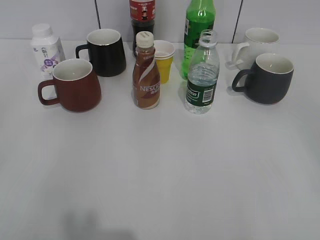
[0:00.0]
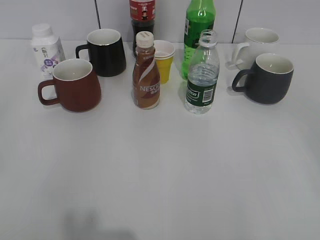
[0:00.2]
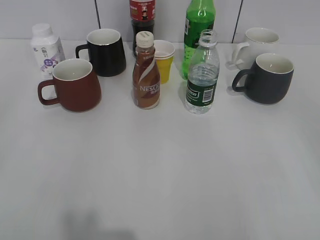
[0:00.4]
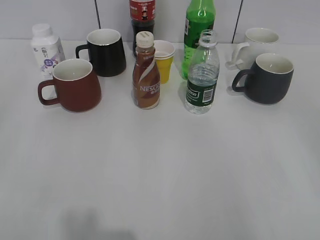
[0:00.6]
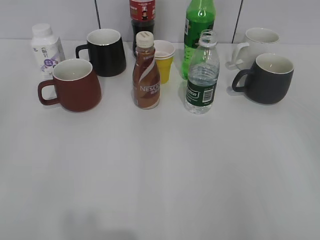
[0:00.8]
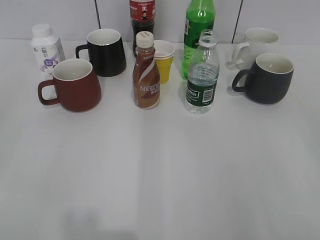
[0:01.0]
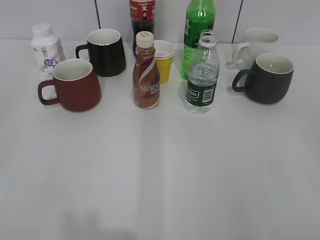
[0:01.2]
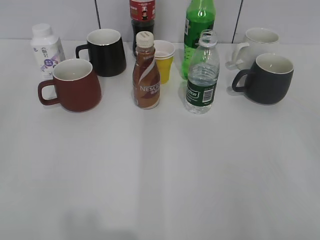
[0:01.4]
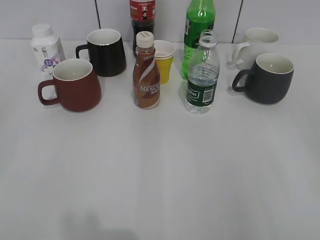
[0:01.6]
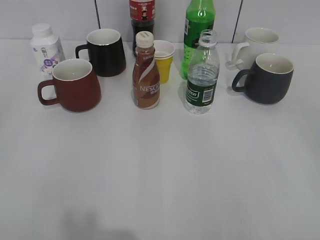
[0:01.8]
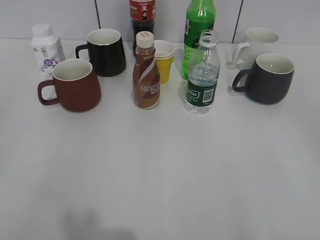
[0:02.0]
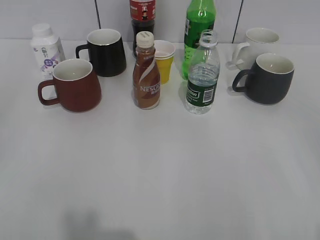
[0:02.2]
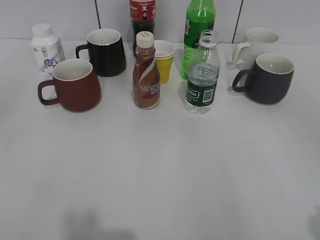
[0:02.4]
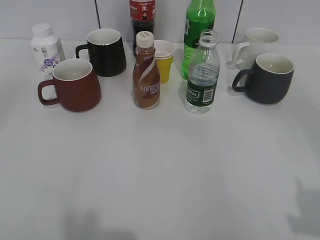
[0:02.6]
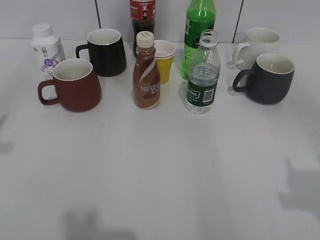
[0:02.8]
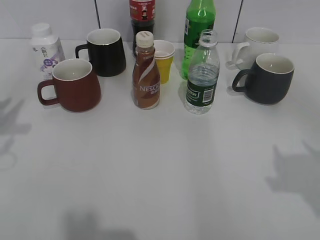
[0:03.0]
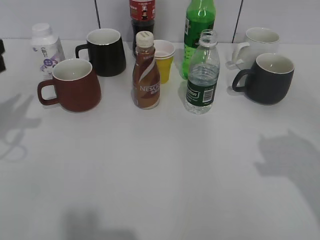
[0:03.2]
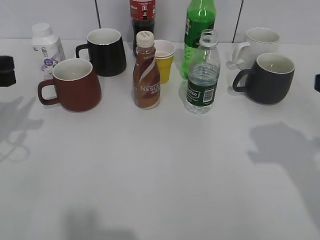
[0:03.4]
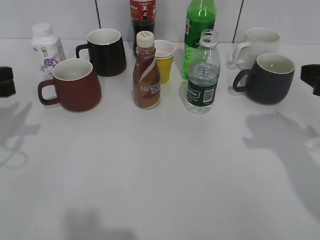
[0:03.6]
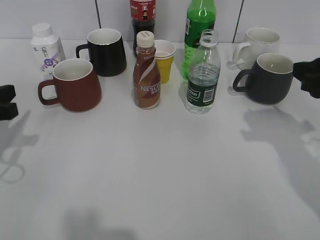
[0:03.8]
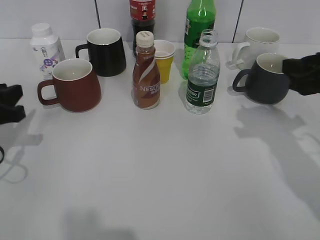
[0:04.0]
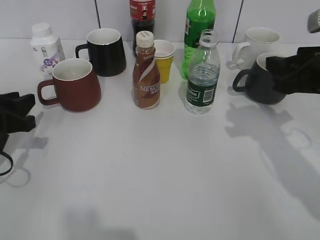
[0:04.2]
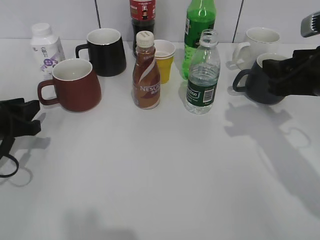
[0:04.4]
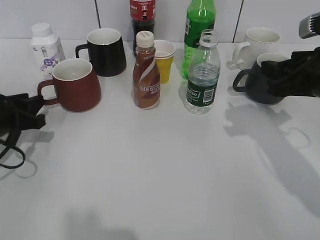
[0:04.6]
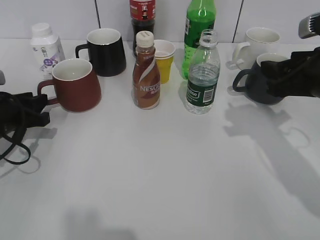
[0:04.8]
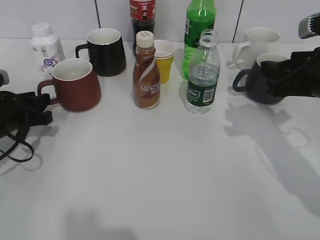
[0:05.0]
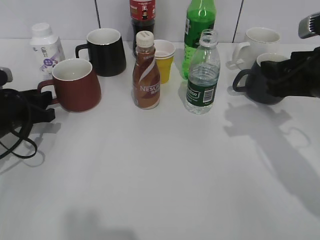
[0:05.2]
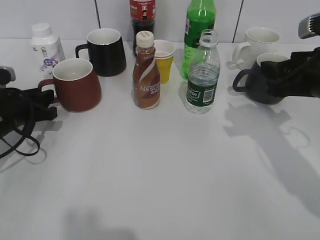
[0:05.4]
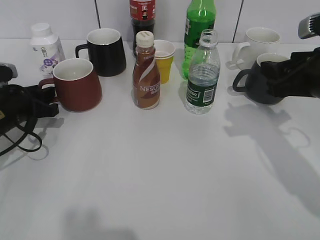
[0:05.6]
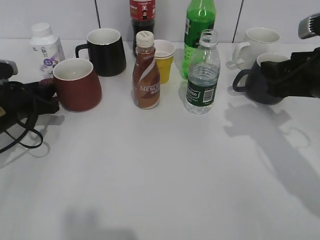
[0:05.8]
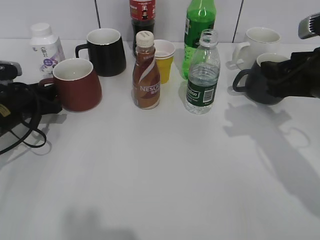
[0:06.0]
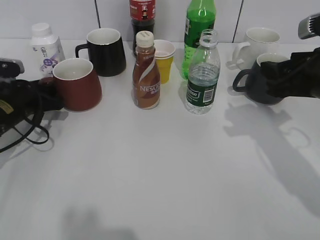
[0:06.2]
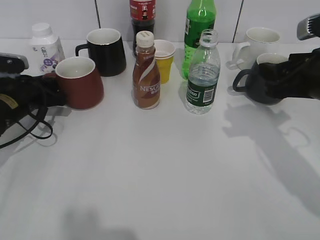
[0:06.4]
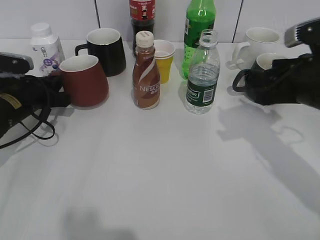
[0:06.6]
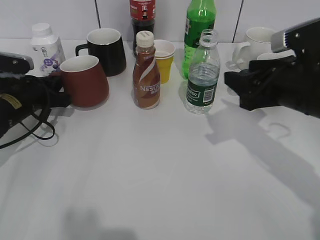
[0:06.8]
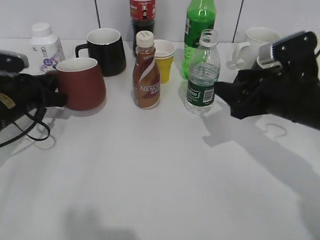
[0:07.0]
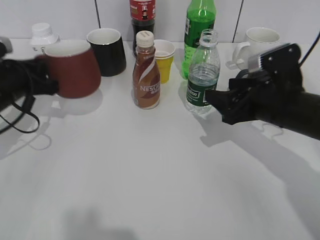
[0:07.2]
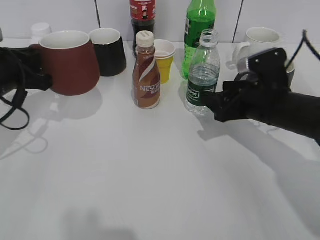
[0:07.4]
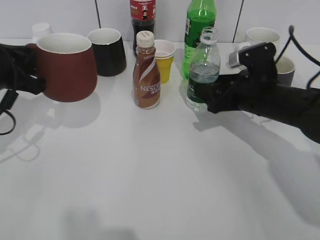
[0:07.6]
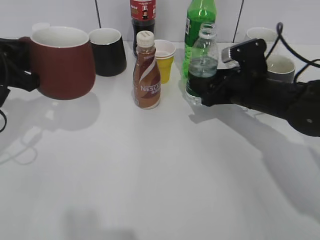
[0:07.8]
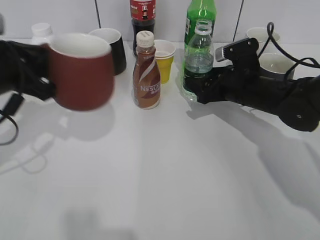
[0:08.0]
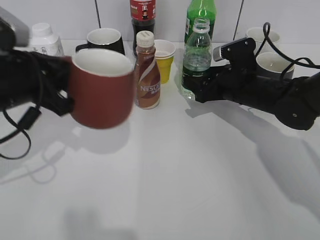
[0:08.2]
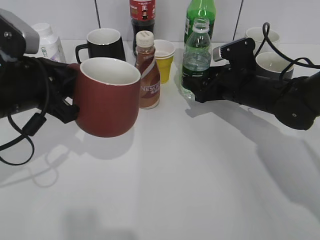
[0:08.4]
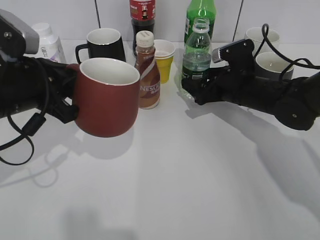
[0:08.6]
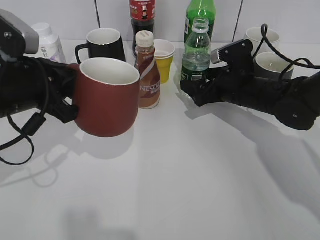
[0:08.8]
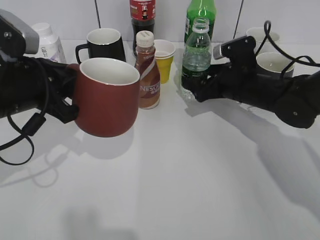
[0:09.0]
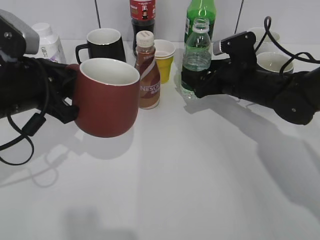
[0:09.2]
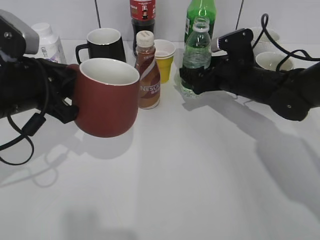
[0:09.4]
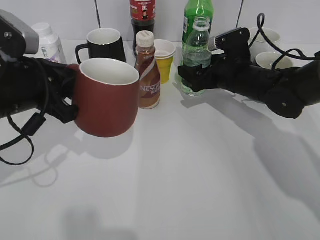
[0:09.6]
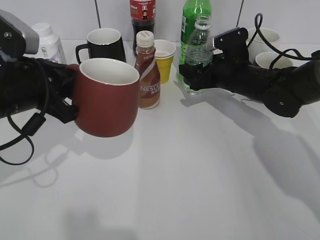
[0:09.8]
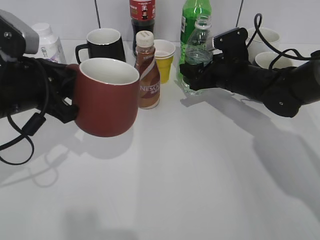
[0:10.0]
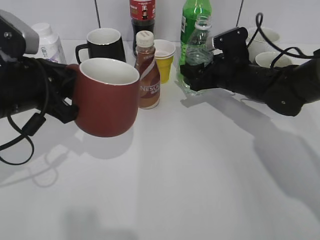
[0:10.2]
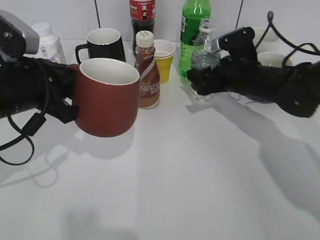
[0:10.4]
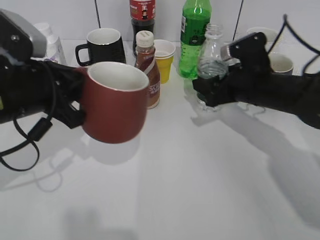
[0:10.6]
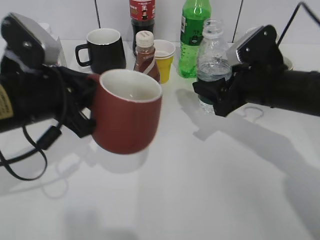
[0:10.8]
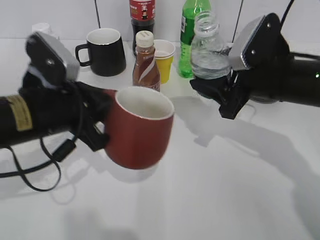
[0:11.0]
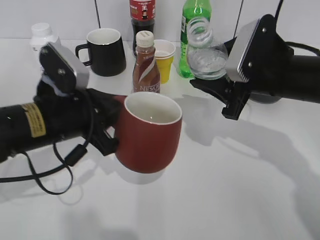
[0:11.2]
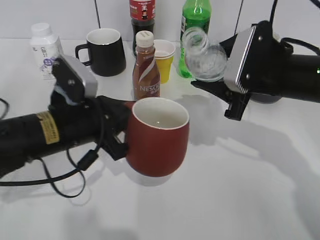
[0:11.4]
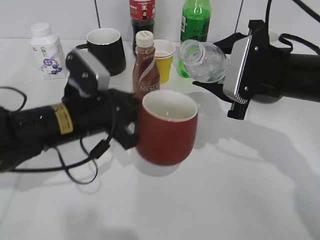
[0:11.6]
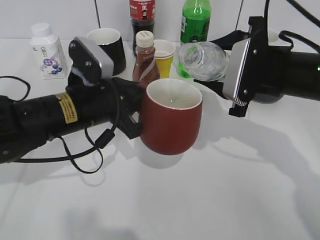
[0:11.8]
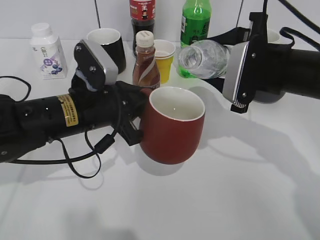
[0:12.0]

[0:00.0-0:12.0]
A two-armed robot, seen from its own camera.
Step, 0:02.0 to 0:06.2: Grasp the red cup with left gripper.
Step, 0:06.4 to 0:07.2: Lift the red cup with left gripper.
Step, 0:07.4 to 0:09.8: Grasp the bottle with water with right gripper.
0:01.6 to 0:03.0: The right gripper moves forward, some 10 cm. Meanwhile the left gripper goes approximately 20 cm forward.
0:03.0 to 0:04.4: The left gripper shifts some 15 cm downward; the right gripper is displaced forward and downward by roughly 20 cm.
0:04.4 to 0:06.0: The left gripper moves forward, some 5 cm.
0:06.0 to 0:07.6: The left gripper goes some 10 cm upward, and closes. The right gripper is displaced downward, forward and to the left by some 10 cm, and opens.
0:07.6 to 0:09.0: The right gripper moves approximately 5 cm, and opens its fingers. The left gripper travels to the right by some 5 cm.
0:09.0 to 0:10.4: The right gripper closes its fingers.
0:10.4 to 0:12.0: The left gripper goes some 10 cm to the right and downward. Meanwhile the right gripper shifts some 10 cm backward and upward.

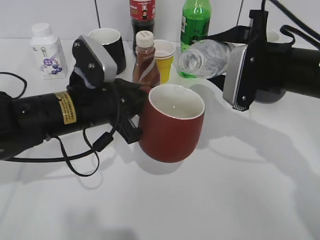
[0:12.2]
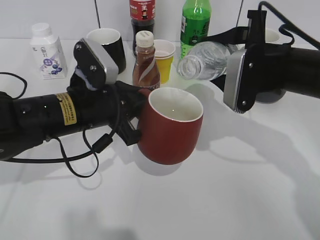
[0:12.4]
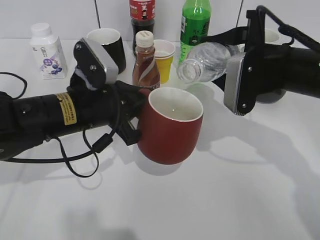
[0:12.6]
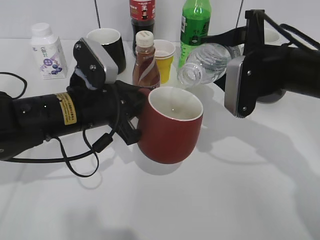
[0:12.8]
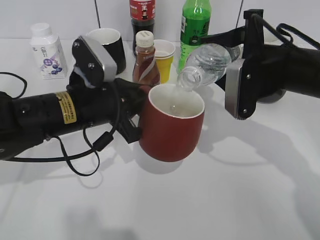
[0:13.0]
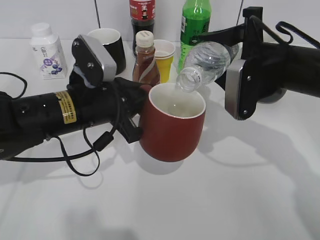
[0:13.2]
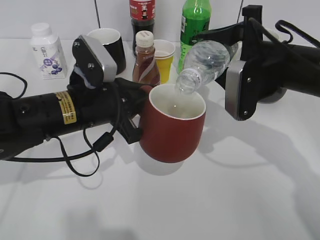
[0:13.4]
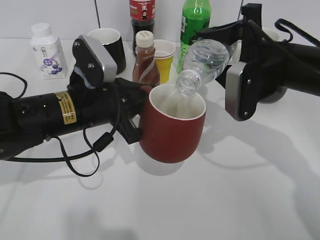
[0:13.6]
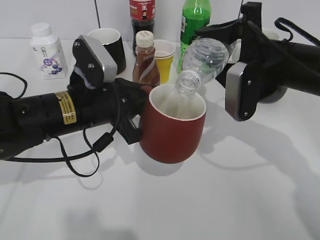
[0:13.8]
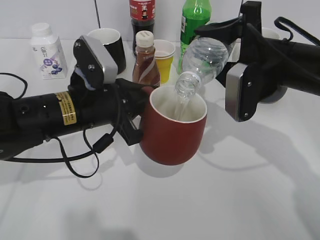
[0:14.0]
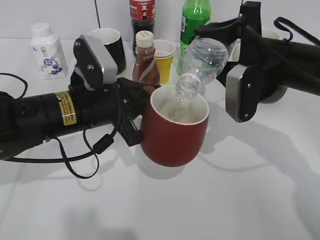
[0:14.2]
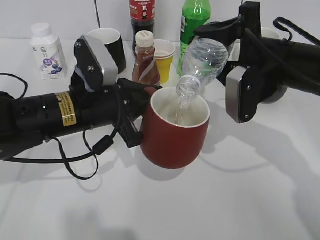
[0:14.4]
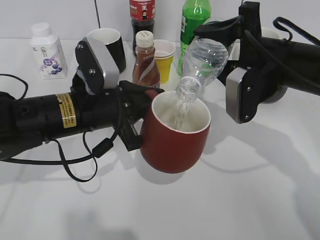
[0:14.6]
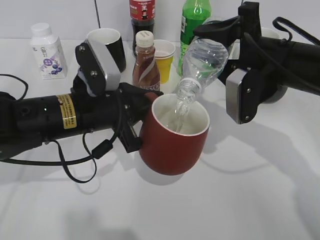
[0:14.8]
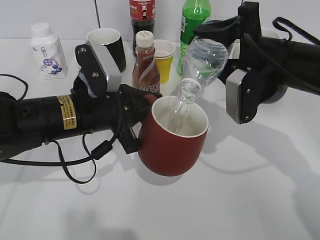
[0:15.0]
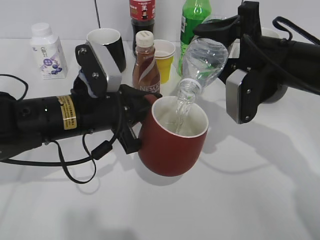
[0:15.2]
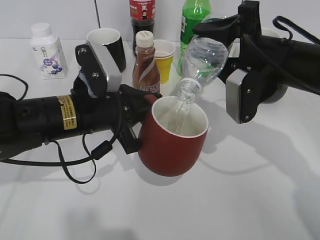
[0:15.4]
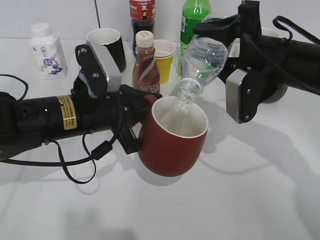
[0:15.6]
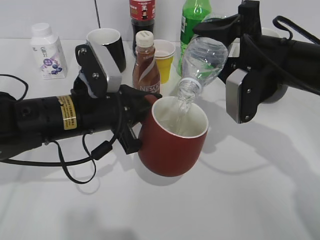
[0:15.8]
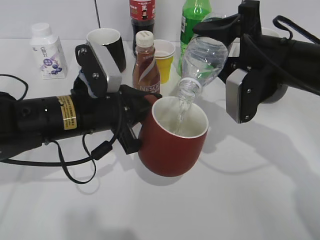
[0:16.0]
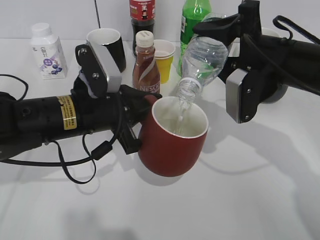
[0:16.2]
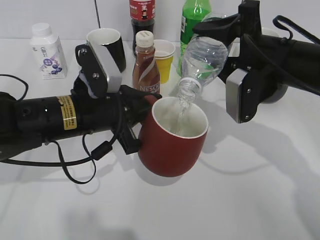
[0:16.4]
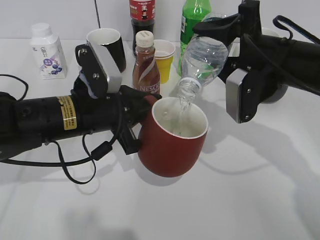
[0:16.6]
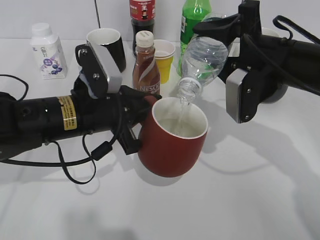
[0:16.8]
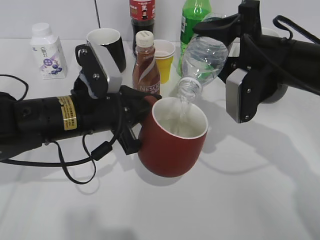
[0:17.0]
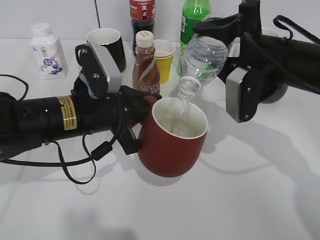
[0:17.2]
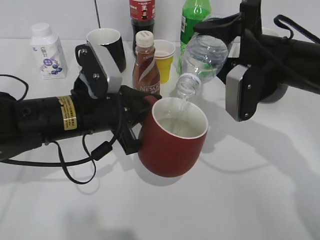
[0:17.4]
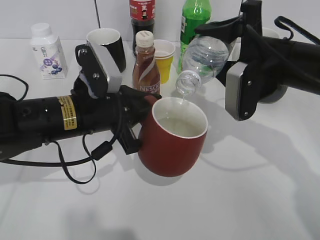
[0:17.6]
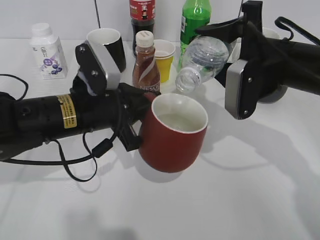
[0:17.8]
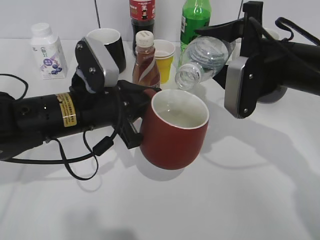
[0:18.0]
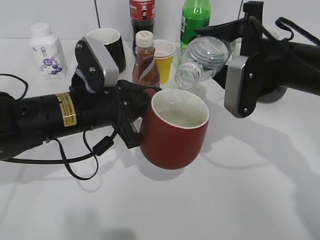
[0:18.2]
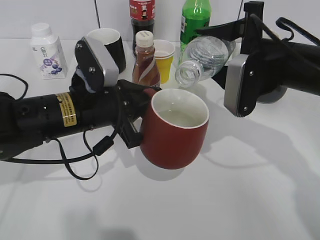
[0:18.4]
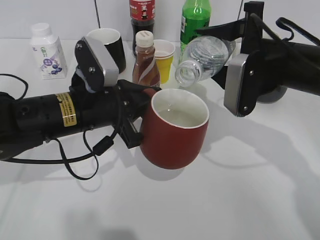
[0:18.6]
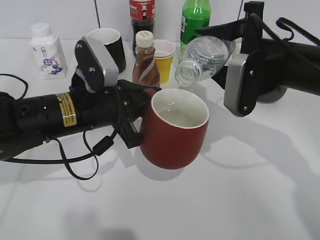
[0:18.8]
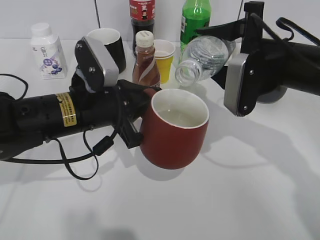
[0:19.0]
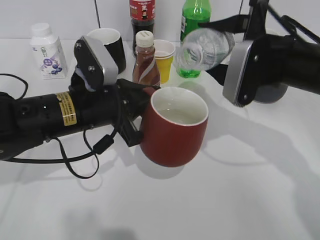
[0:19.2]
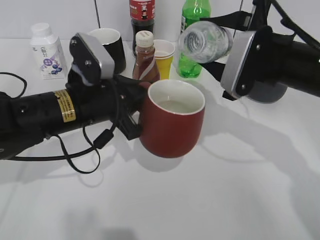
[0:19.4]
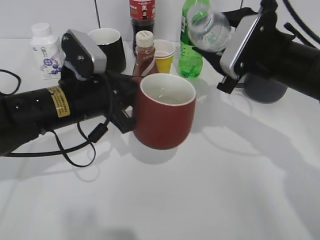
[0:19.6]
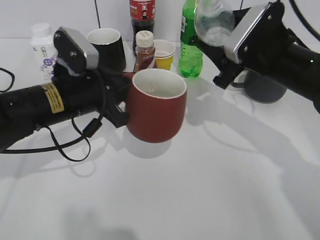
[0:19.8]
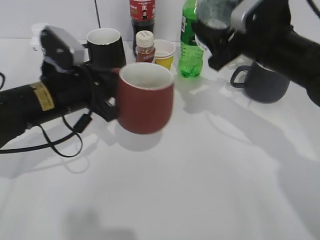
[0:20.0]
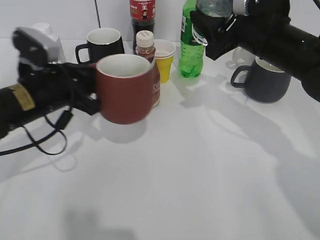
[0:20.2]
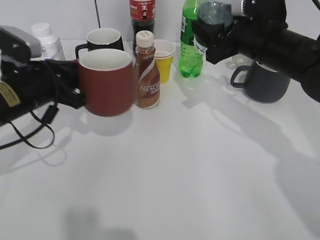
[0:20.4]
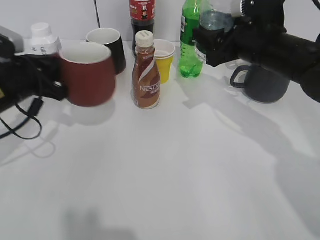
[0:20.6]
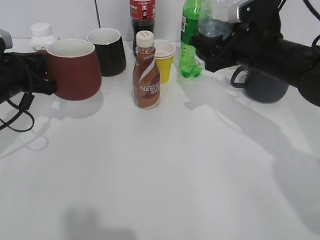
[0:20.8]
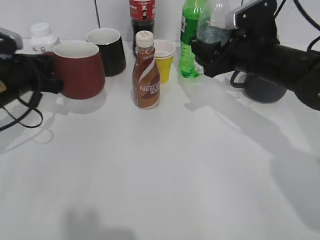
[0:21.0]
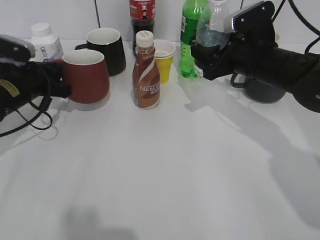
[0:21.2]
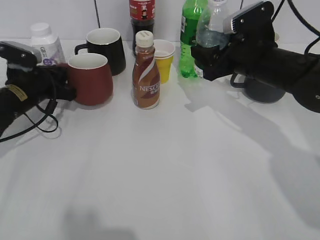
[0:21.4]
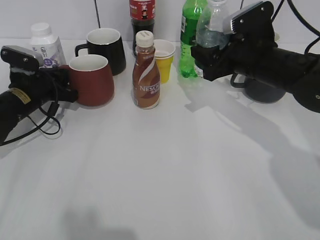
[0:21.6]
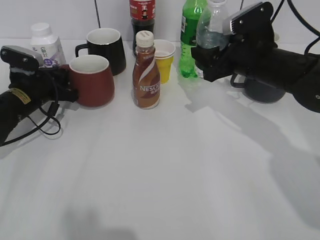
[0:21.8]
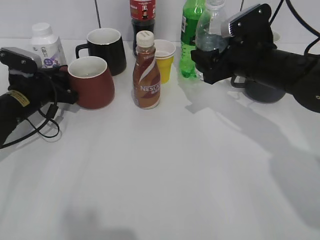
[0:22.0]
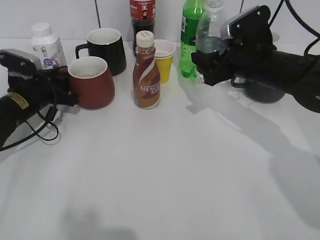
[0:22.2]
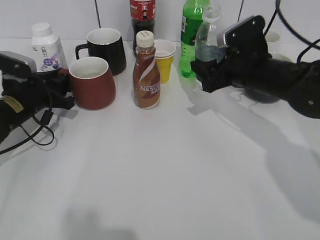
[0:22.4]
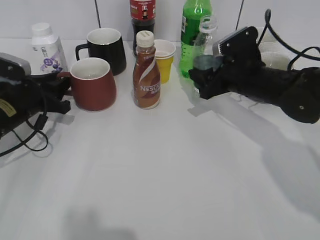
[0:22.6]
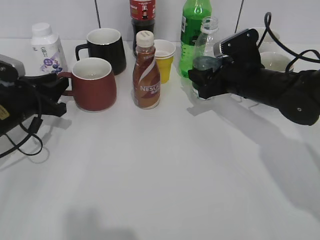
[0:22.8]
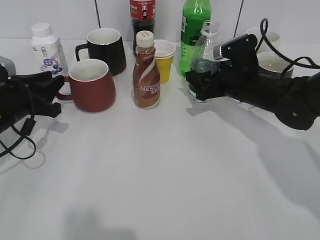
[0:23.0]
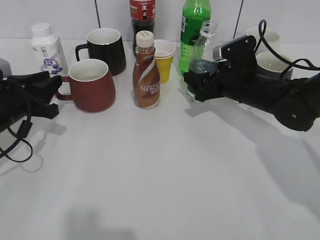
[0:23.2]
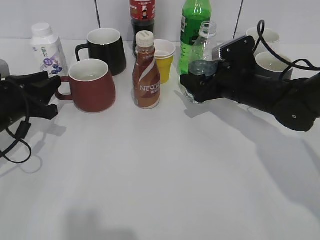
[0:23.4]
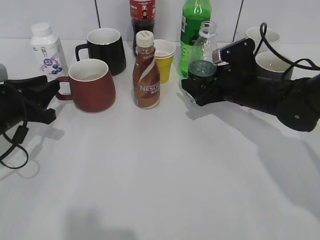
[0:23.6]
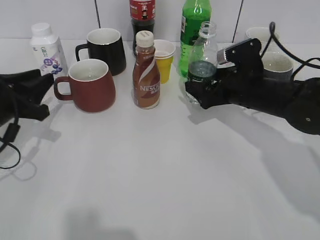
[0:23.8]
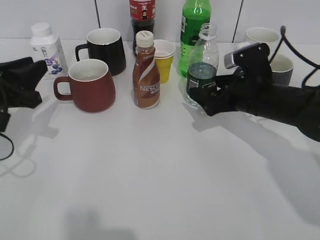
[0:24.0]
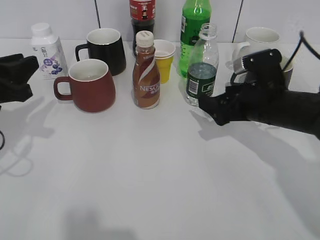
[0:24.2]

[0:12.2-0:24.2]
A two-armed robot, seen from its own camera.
Step, 0:12.2 to 0:18.6: Pour the water from bottle to cup with right gripper.
Step, 0:18.8 to 0:22.6: Place the red cup on the table with left gripper.
Step, 0:22.8 to 0:23.8: Place the water bottle on the table with right gripper.
0:13.8 to 0:15.2: There are only small adjustments of the grippers.
0:15.2 to 0:16.6: Both grippers stay put.
0:16.6 to 0:18.2: The grippers move only a little.
0:19.8 to 0:21.2: The left gripper shifts approximately 15 cm to the left and forward.
0:21.2 to 0:22.6: The left gripper opens up.
0:22.6 to 0:24.2: The left gripper goes about 10 cm upward and backward. The right gripper heads backward, covering approximately 5 cm, and opens up.
